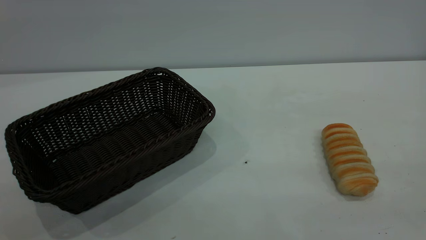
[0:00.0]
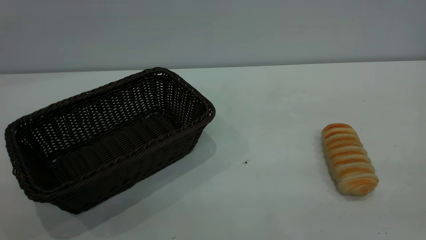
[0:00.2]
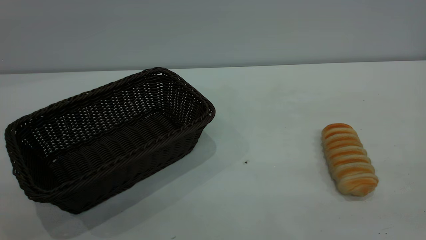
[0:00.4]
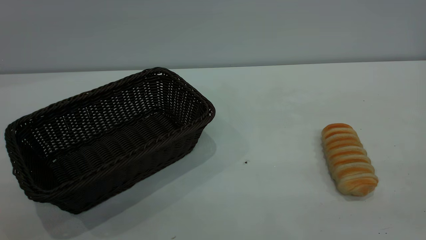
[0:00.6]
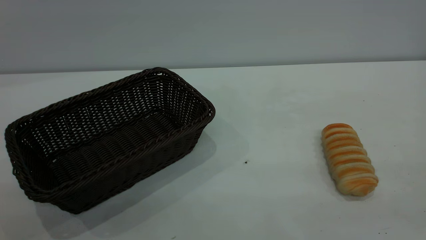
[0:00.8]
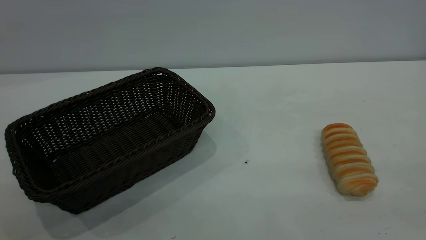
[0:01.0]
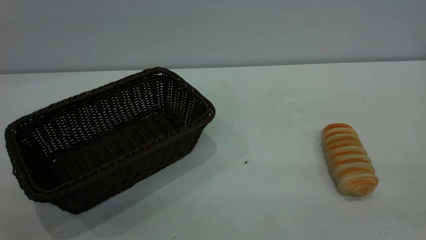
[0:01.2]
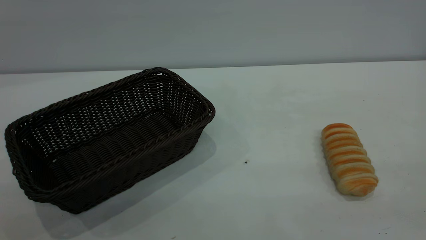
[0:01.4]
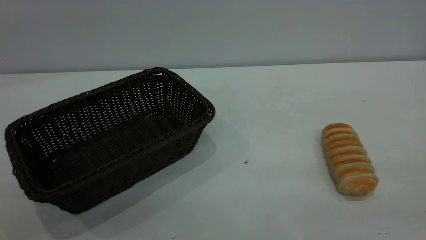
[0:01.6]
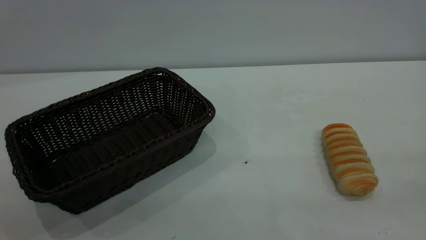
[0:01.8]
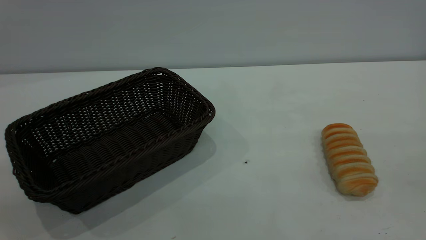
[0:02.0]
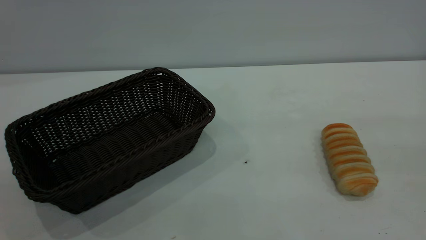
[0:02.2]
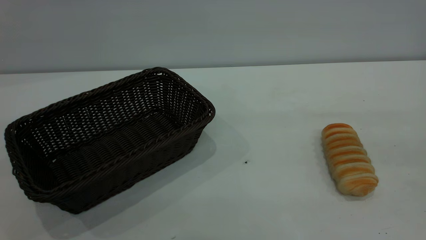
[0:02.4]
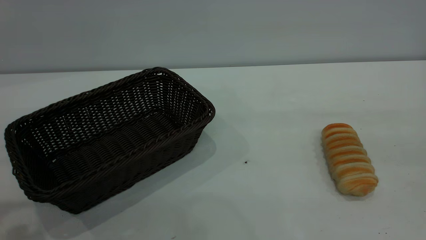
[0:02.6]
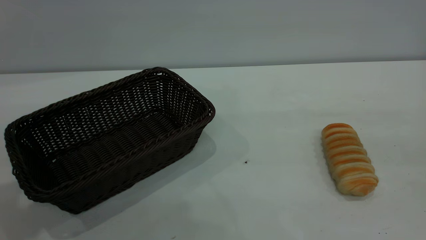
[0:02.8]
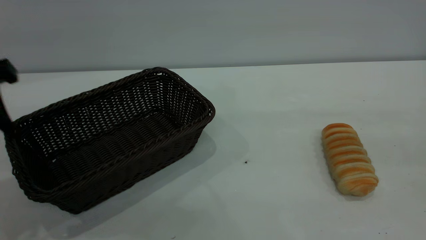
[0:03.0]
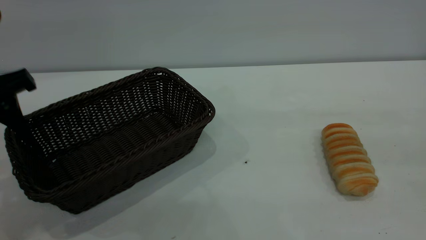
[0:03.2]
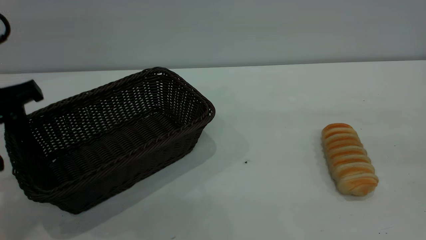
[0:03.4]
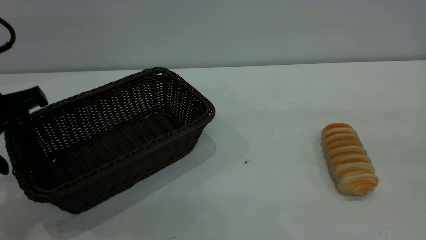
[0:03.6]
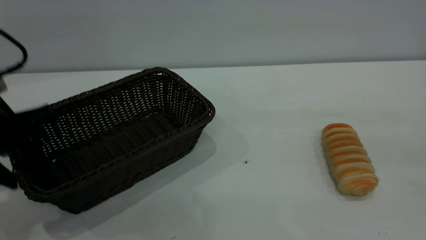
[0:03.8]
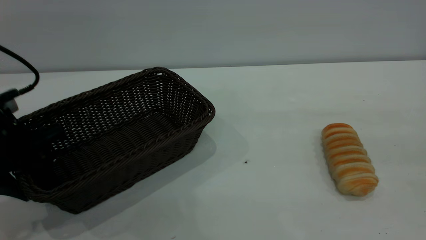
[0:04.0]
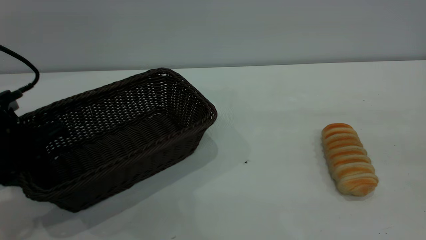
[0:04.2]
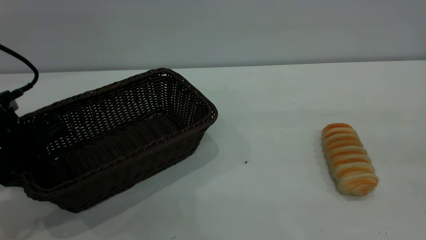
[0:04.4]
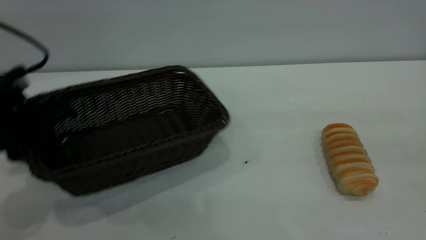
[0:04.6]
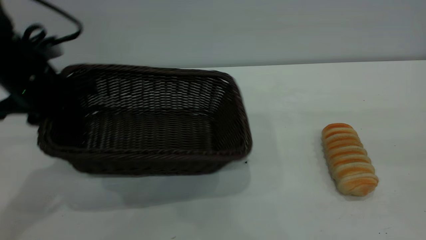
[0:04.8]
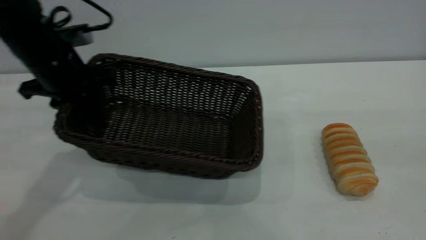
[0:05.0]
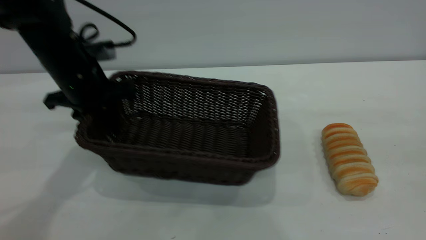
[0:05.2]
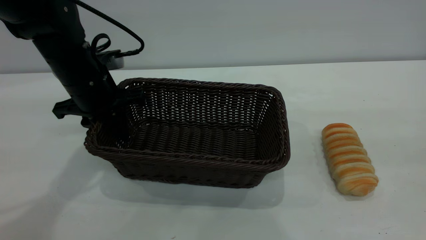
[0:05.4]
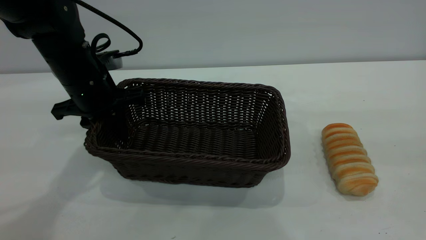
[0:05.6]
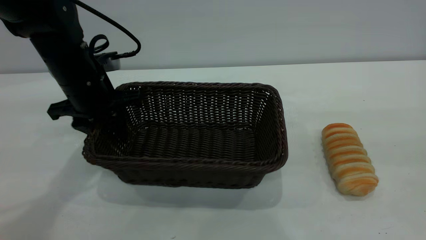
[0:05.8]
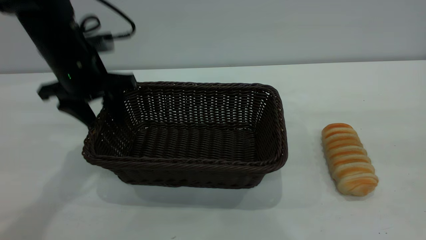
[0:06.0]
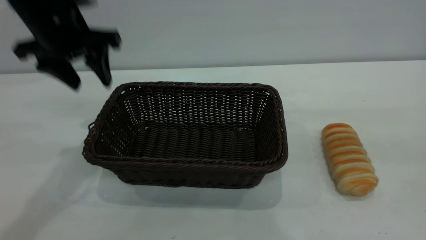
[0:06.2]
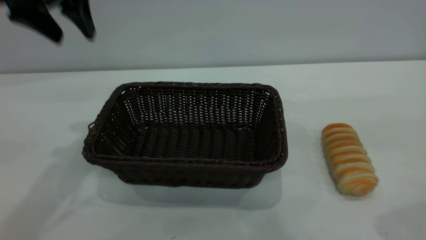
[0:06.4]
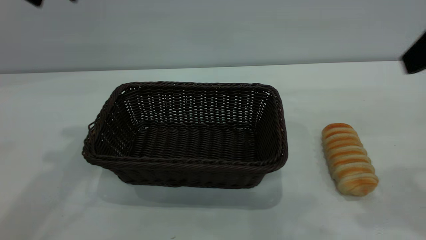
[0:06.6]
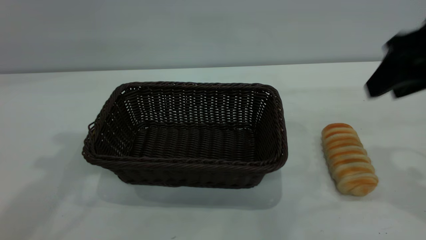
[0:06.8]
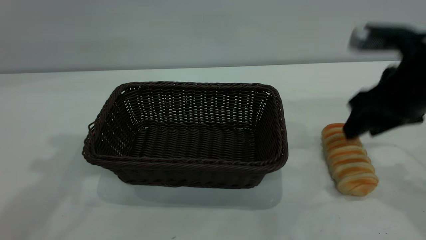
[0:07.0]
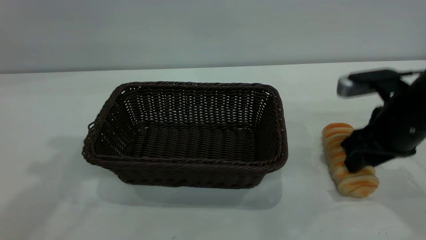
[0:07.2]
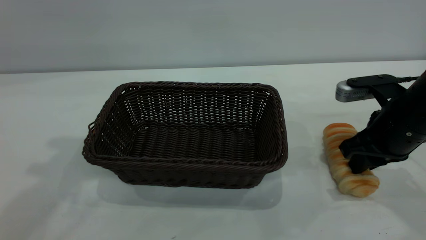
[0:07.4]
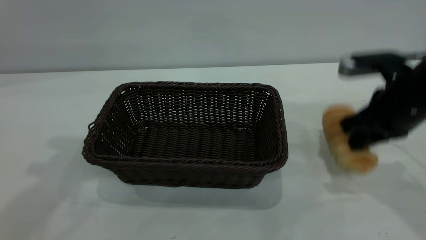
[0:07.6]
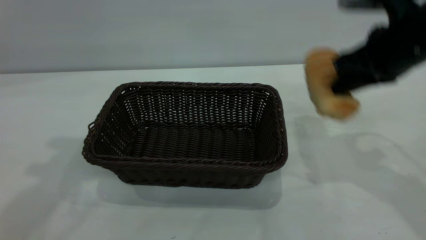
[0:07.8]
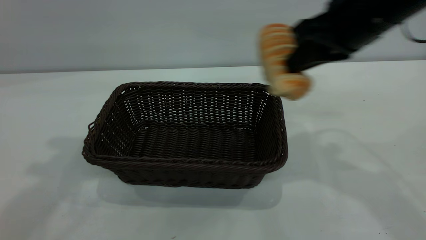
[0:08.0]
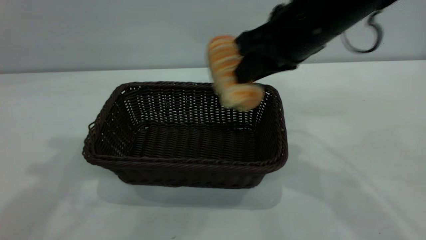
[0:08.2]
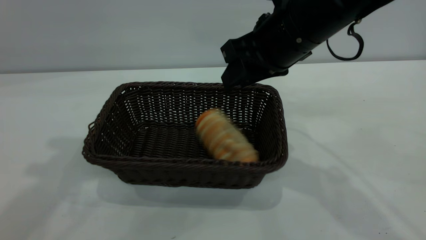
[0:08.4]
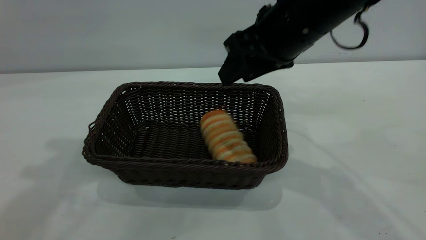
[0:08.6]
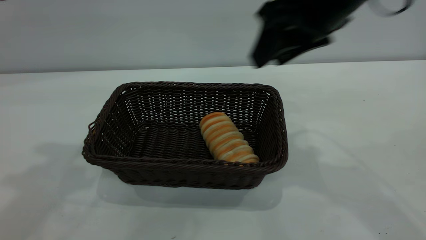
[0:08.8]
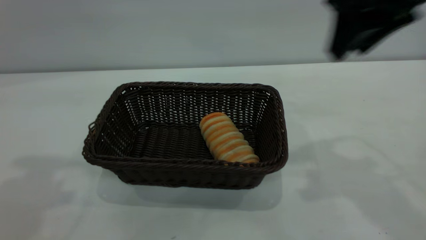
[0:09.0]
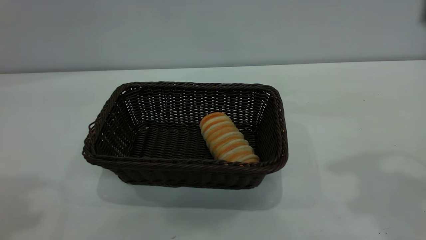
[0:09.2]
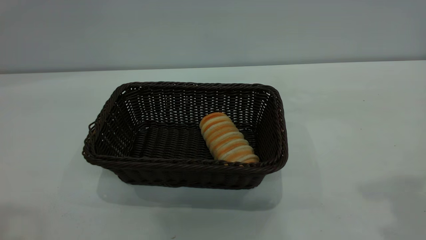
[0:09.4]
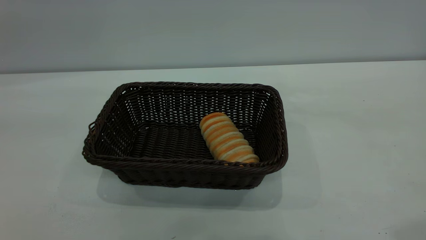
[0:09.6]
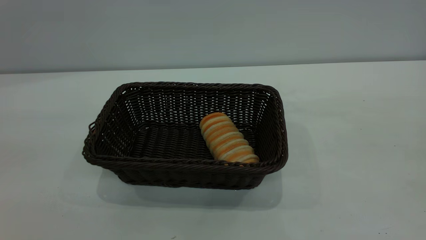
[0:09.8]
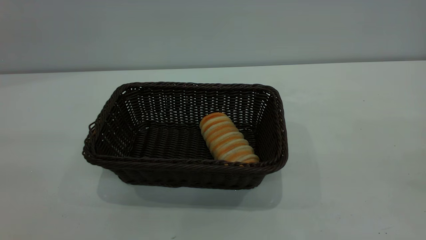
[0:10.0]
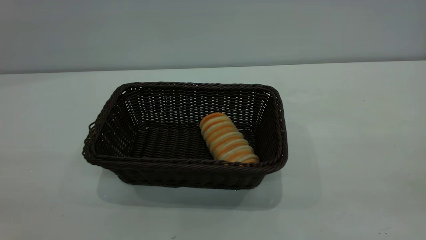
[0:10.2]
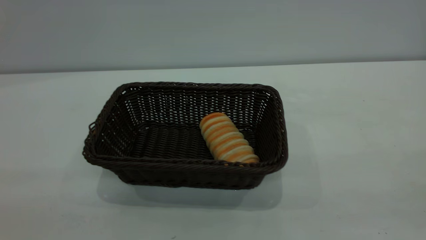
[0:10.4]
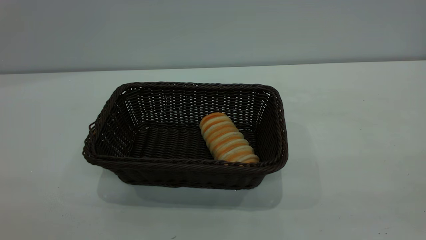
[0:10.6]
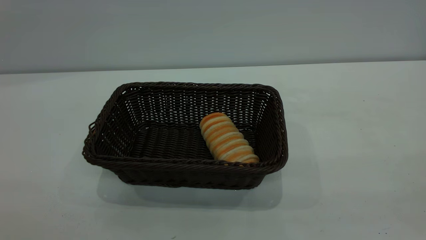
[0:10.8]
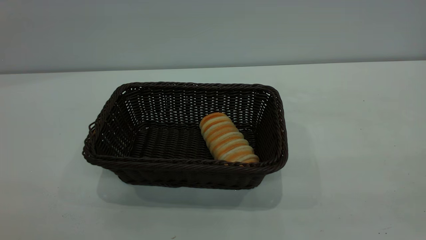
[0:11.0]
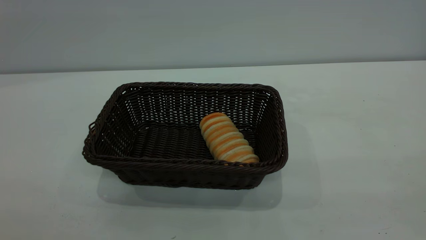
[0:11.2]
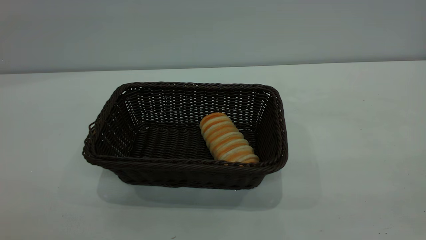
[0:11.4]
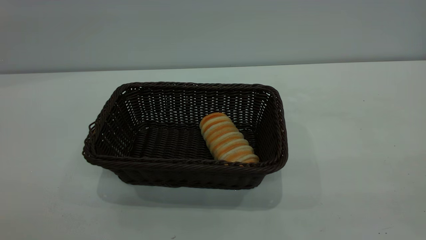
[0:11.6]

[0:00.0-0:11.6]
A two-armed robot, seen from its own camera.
Task of the whole recording: One hand grasps the black basket and places it in the middle of the table, while the other hand picks up the long bread and puts it into the black basket.
Step, 0:00.0 to 0:06.2: Move the basket to the center of view.
Step, 0:07.8 to 0:08.8: place the bread into the basket.
0:00.0 to 0:01.4: The two grippers keep their place.
0:02.8 to 0:04.4: The left gripper travels downward by about 15 cm, and closes.
0:04.4 to 0:05.8: The left gripper goes approximately 15 cm forward and to the right, and opens up.
0:05.8 to 0:07.2: The left gripper goes about 25 cm upward. The right gripper moves downward and forward, some 35 cm.
0:07.2 to 0:08.8: The right gripper is displaced upward and to the left by roughly 20 cm, and closes, then opens again.
0:08.8 to 0:10.2: The right gripper heads backward and to the right, covering approximately 35 cm. Meanwhile the left gripper shifts roughly 30 cm backward.

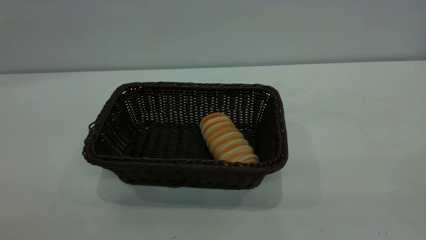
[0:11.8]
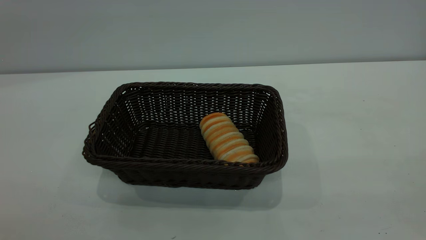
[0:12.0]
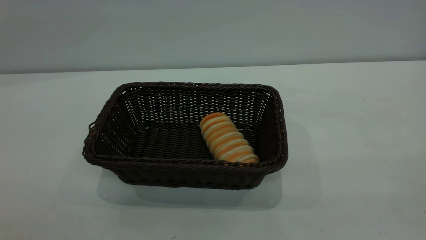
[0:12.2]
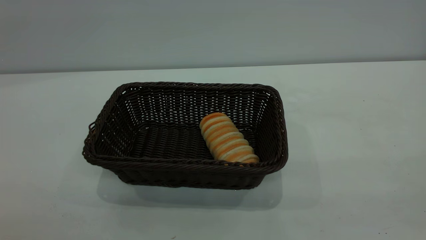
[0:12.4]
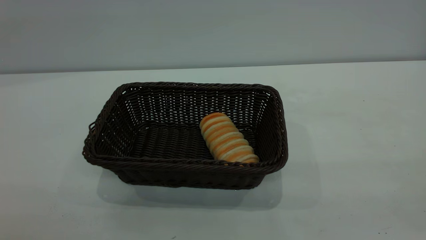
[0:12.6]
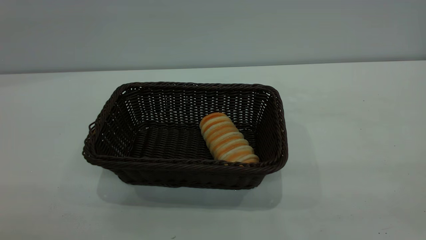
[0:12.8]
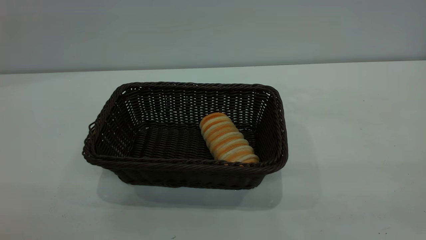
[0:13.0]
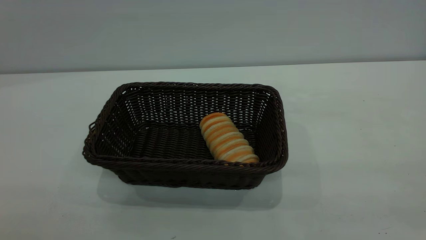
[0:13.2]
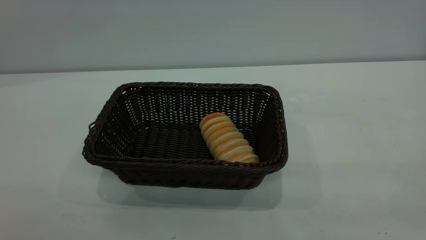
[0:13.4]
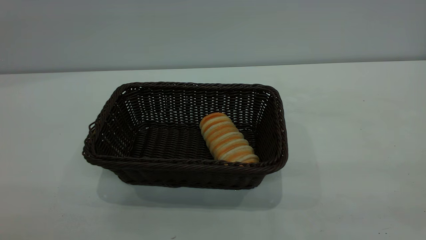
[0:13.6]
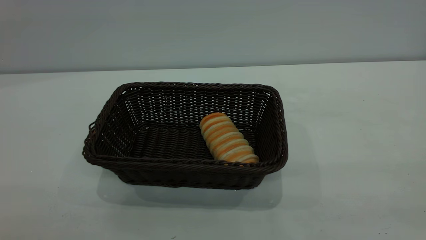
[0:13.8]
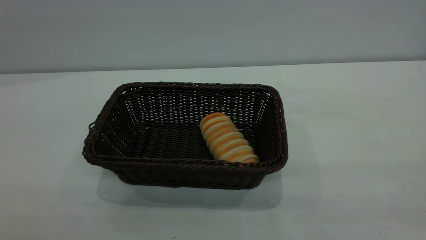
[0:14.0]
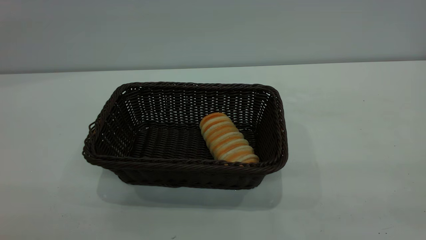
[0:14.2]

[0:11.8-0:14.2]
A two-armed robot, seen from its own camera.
Task of the whole recording: One hand grasps the black basket and places it in the middle of the table, while the other hand picks up the long bread and puts it into the black basket.
0:13.0 to 0:14.2: The two grippers keep their place.

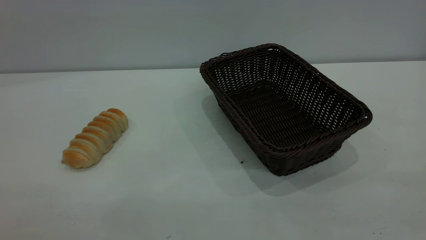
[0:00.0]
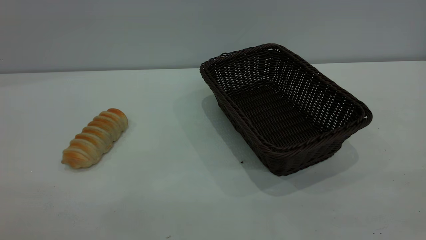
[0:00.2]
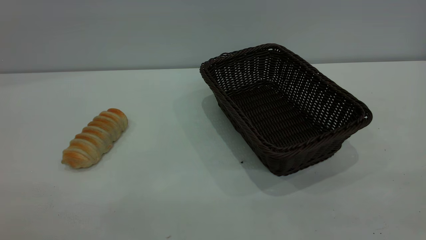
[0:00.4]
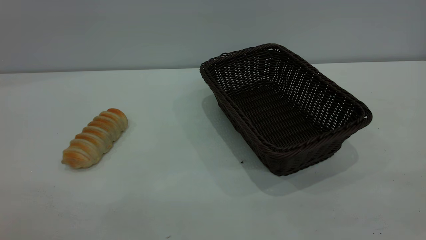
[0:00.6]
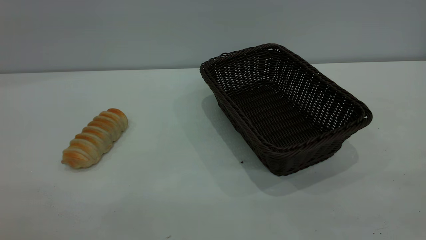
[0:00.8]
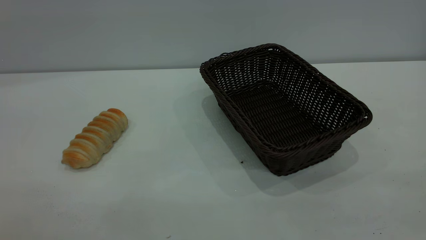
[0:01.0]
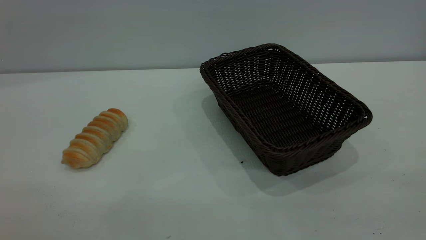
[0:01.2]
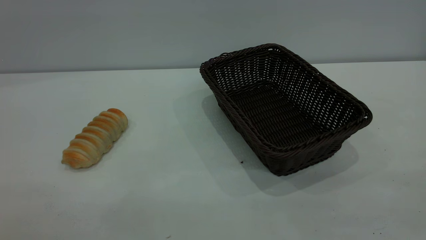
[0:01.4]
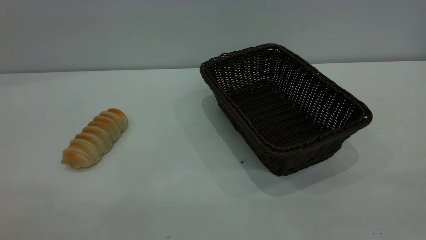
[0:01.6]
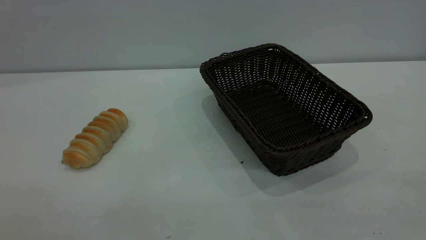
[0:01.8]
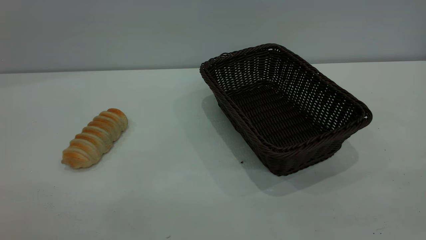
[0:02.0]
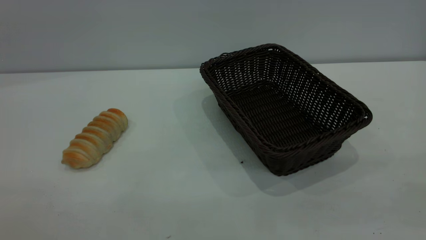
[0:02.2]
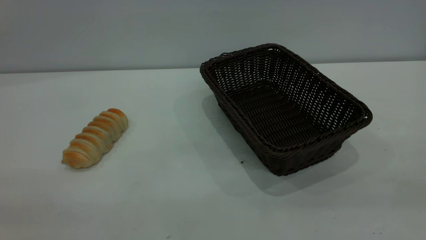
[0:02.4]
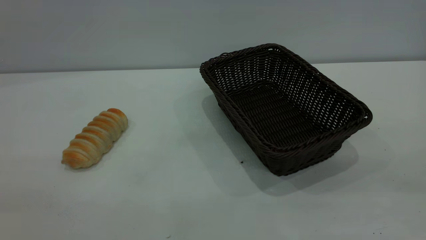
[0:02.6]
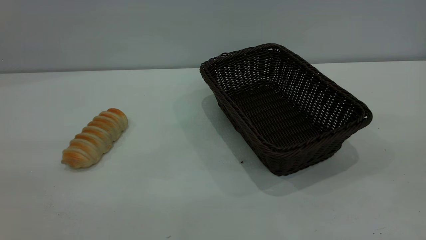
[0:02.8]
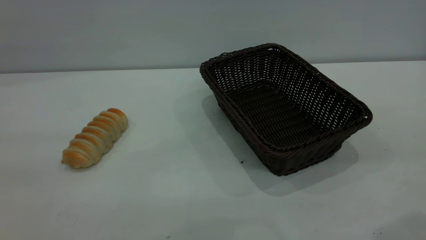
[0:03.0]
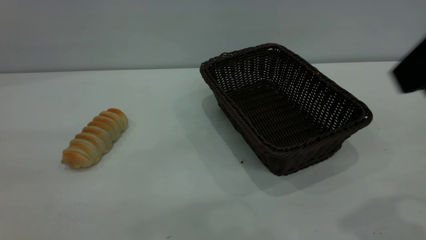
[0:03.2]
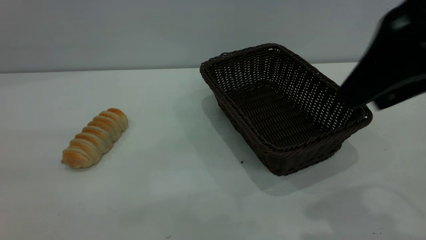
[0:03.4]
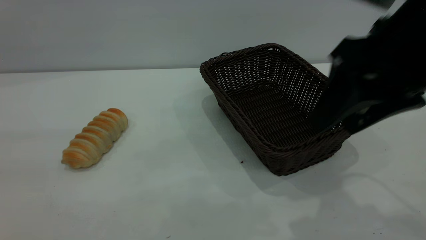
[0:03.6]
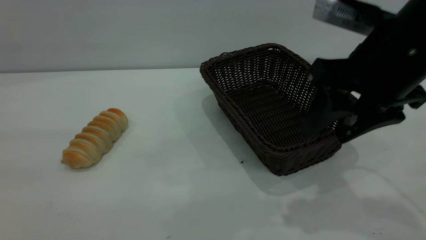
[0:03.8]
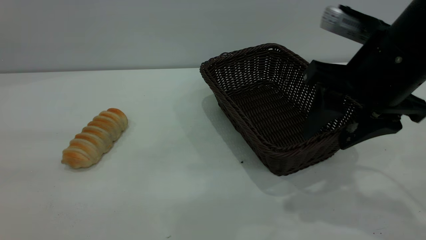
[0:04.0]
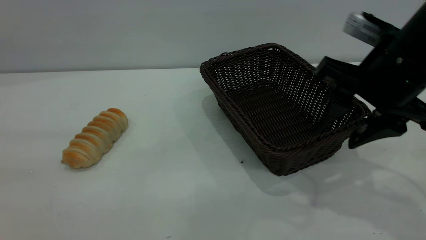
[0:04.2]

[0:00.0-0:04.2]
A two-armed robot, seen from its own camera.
Task of the whole recording: One hand grasps the black basket and places it in the middle of the table, while the other hand picks up the long bread and puts it into the black basket.
0:00.0 to 0:01.4: Both grippers stay put.
0:02.8 to 0:04.2: The right gripper travels forward, downward and to the left by roughly 20 cm.
